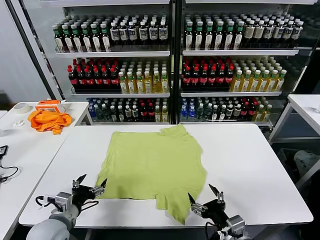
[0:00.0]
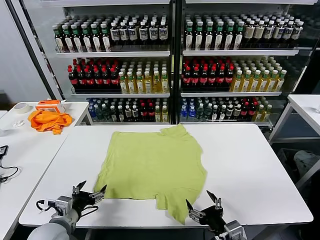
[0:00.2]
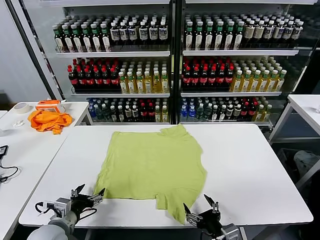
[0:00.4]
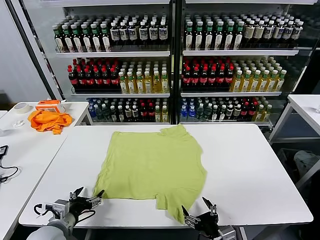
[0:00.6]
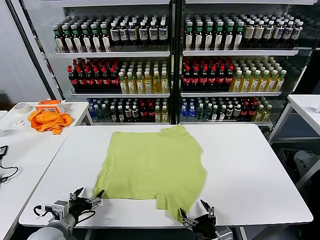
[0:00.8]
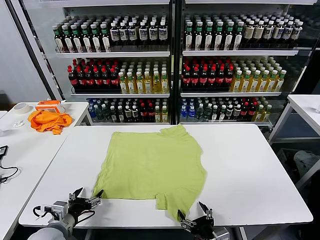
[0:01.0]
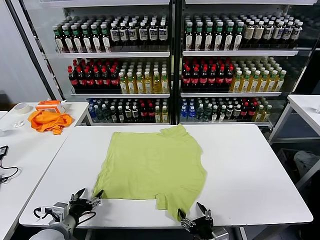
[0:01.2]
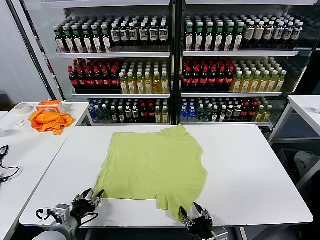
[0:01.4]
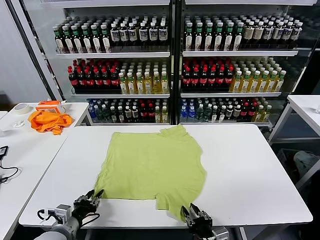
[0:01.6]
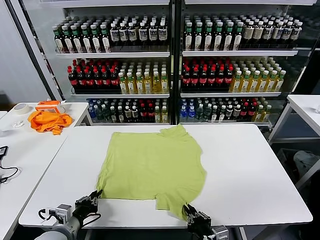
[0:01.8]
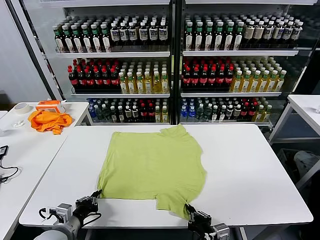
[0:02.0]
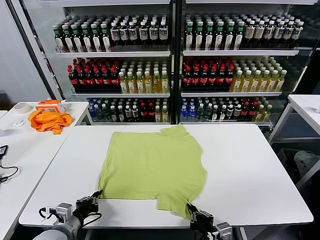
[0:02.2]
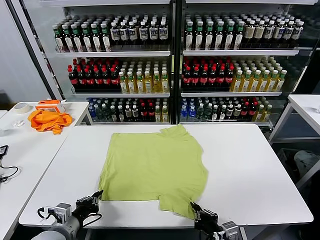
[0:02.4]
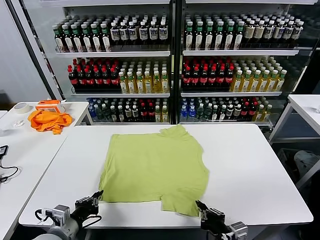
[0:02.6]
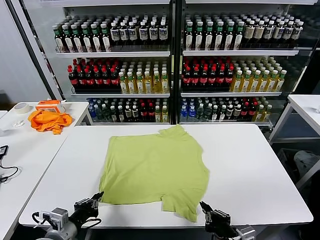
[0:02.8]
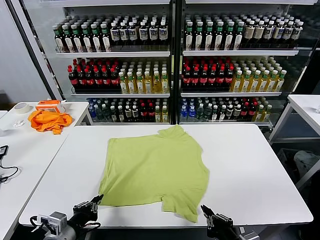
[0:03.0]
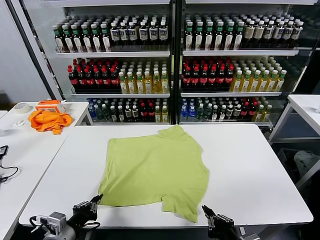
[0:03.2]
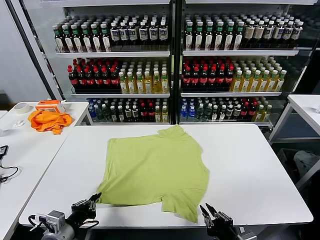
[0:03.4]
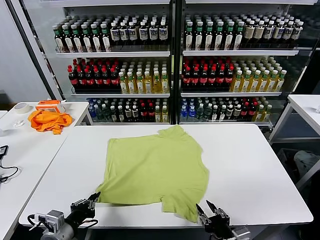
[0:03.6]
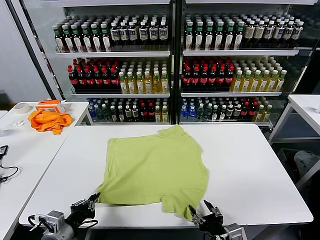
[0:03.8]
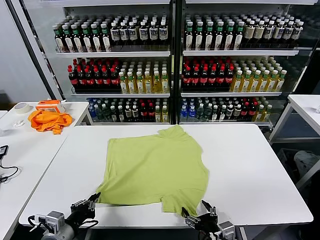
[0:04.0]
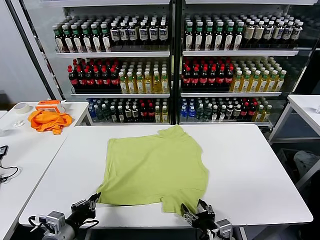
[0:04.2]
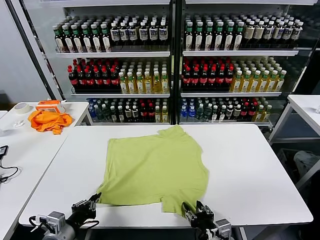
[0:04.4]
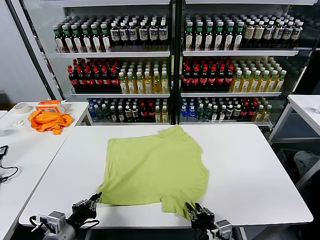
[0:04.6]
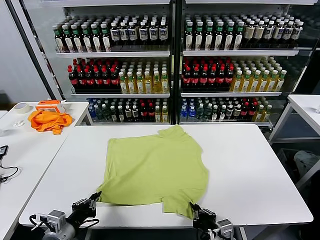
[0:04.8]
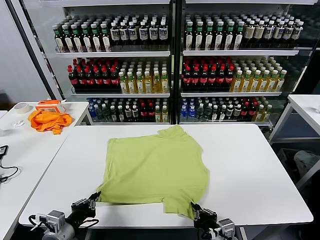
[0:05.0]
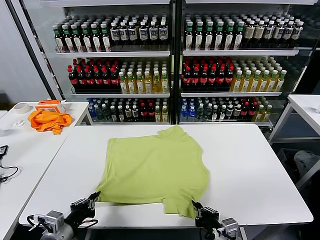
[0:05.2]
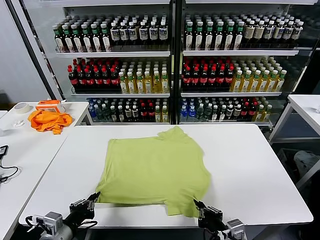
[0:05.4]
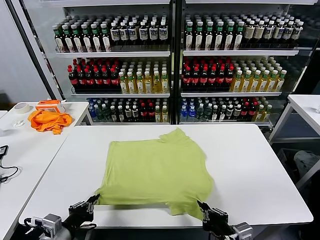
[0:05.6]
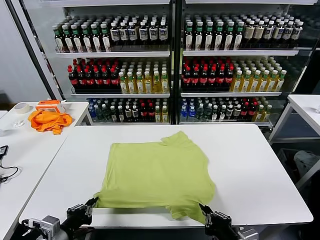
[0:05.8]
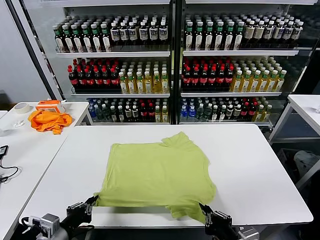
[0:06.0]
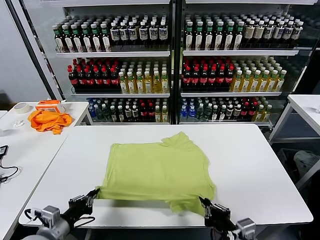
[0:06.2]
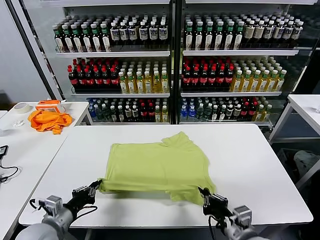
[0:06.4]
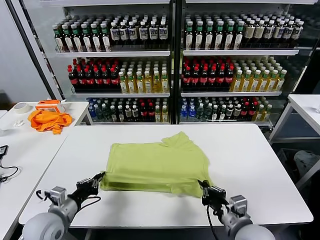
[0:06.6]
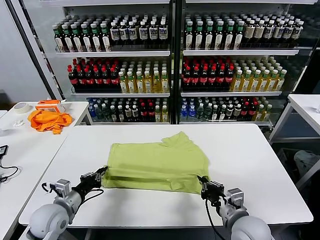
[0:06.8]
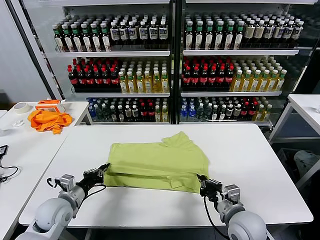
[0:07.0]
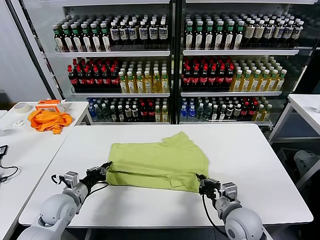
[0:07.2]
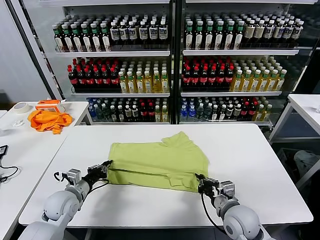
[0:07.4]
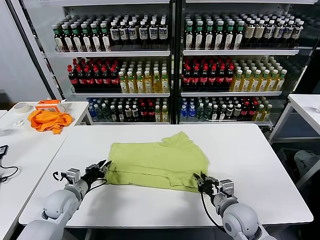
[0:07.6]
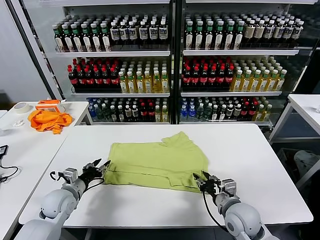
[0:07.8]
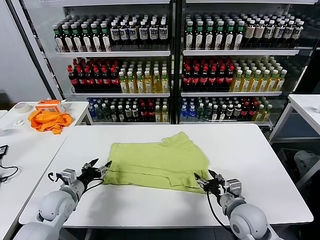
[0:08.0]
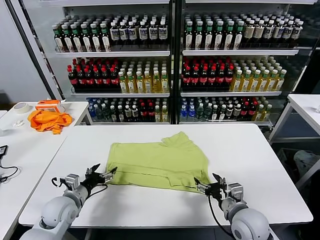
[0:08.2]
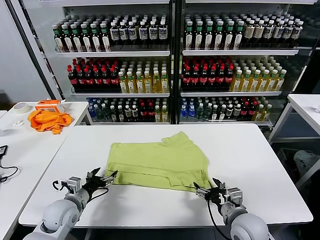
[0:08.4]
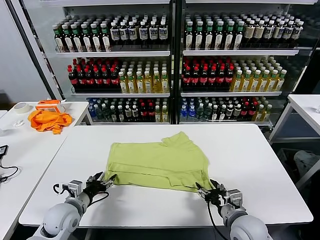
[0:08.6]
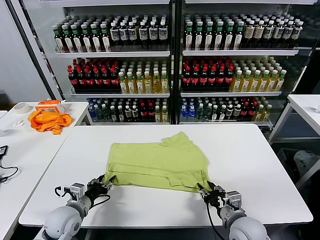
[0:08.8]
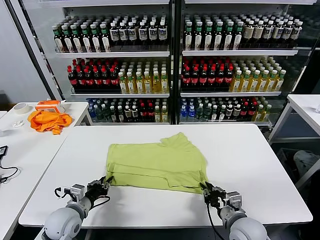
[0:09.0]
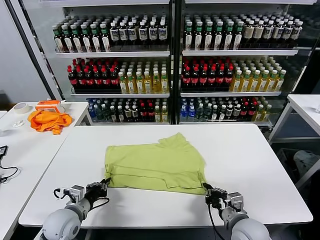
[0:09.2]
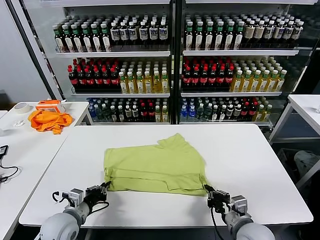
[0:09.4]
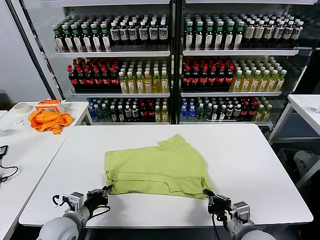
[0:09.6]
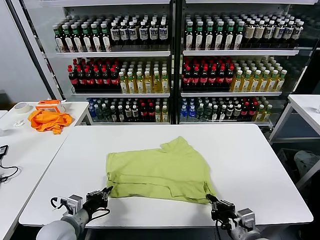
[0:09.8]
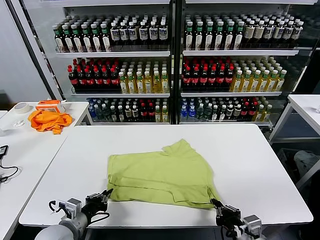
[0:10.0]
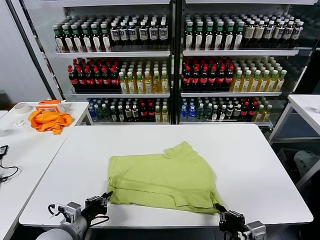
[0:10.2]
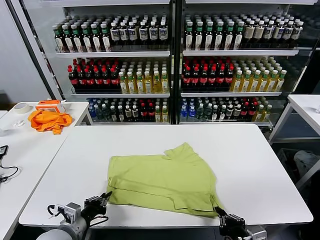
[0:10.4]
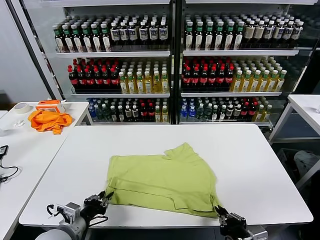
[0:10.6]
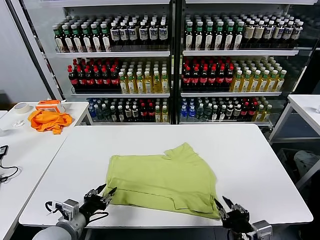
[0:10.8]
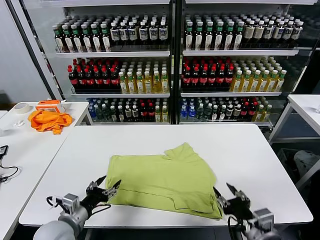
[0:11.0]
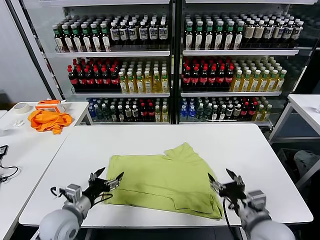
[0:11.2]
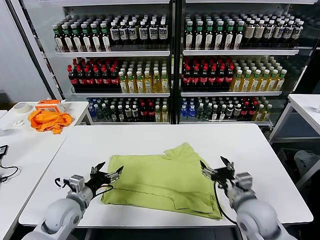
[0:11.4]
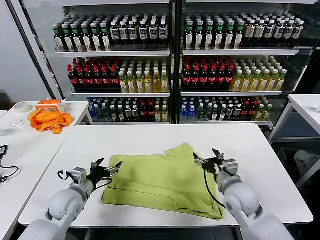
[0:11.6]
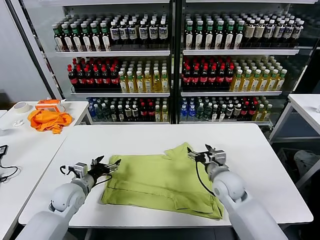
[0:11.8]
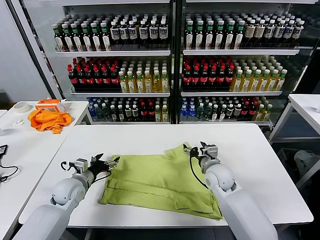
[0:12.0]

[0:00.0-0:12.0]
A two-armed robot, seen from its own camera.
Task of the whole recording: fold and organize the clothes.
Step, 0:00.0 to 0:01.8: use both grippers simultaneously to clamp the lower edge of the clothing fabric.
Step, 0:02.0 to 0:07.8: use both grippers to drag the lower edge of the fabric forward and fold it over the upper edge.
Step, 0:08.0 to 0:10.6: Drag the clothes downward with both gripper.
0:01.6 to 0:03.0: Both grippers travel together upward, about 5 cm.
0:03.0 to 0:04.4: The right gripper shifts some 5 cm downward, and opens its fingers.
0:04.4 to 0:06.0: The right gripper travels upward by roughly 10 cm, and closes.
0:06.0 to 0:07.6: The right gripper goes approximately 15 cm forward and downward, and opens its fingers, while the left gripper shifts about 20 cm forward, and opens.
0:07.6 to 0:09.0: The left gripper travels backward by approximately 5 cm, and opens, then closes once more, while the right gripper opens, then closes once more.
0:09.0 to 0:10.4: The right gripper travels backward by some 10 cm; the left gripper travels backward by approximately 5 cm.
0:10.4 to 0:12.0: The left gripper heads forward, covering approximately 20 cm, and opens; the right gripper is displaced forward by approximately 30 cm, and opens up.

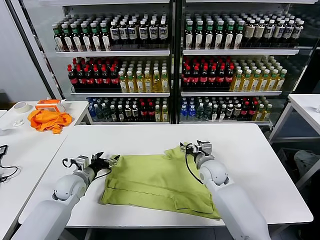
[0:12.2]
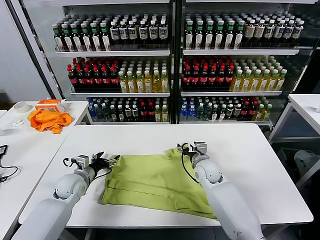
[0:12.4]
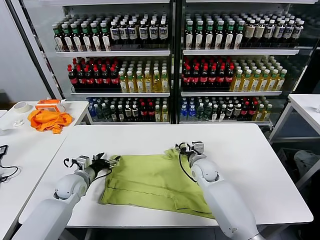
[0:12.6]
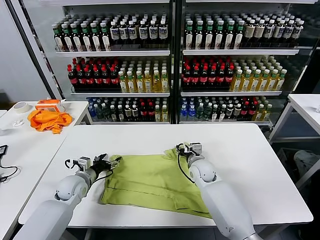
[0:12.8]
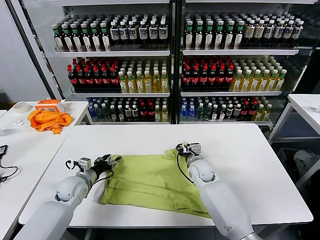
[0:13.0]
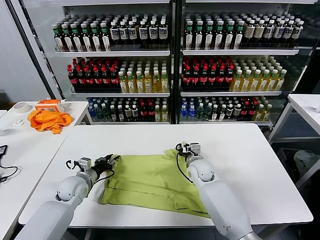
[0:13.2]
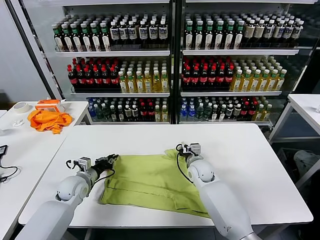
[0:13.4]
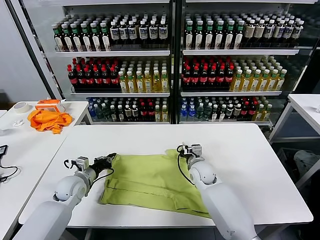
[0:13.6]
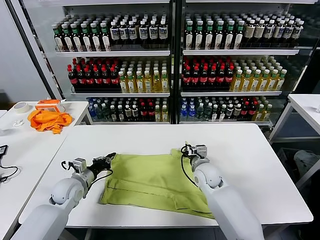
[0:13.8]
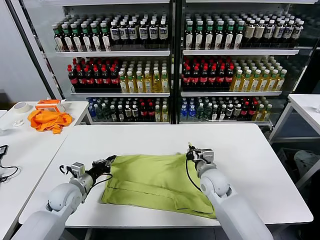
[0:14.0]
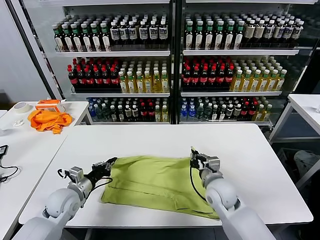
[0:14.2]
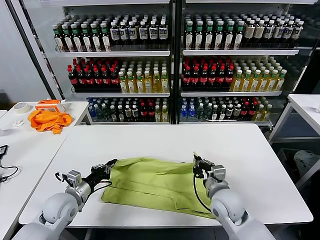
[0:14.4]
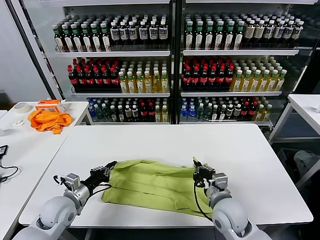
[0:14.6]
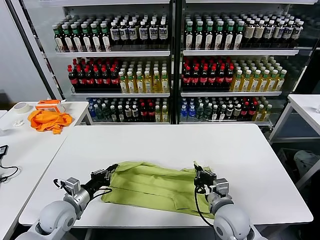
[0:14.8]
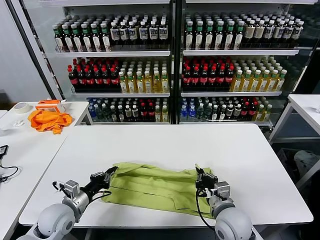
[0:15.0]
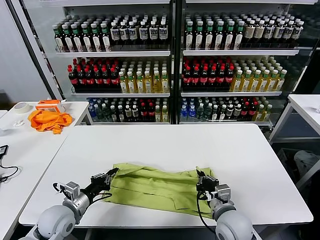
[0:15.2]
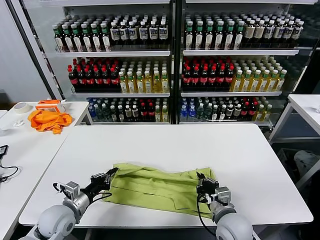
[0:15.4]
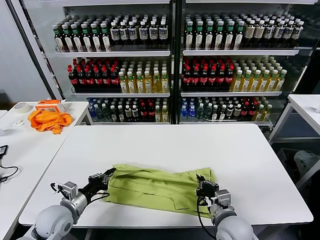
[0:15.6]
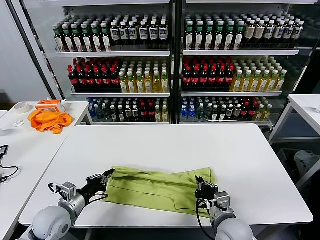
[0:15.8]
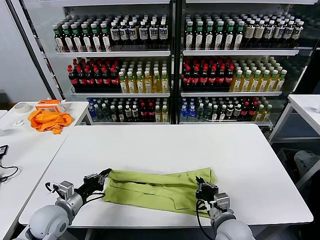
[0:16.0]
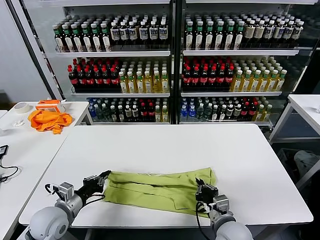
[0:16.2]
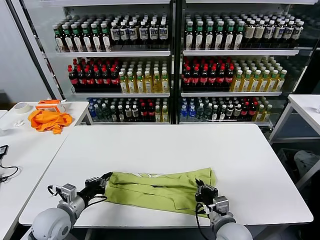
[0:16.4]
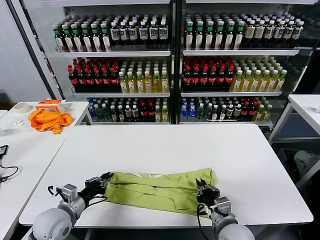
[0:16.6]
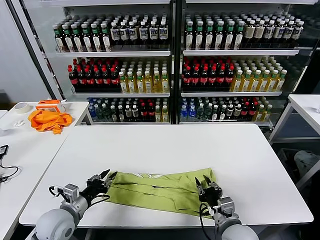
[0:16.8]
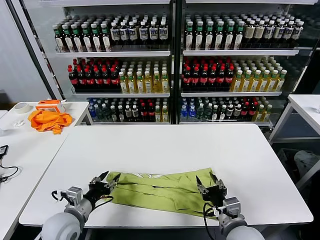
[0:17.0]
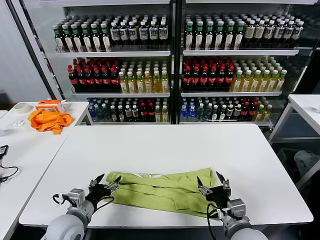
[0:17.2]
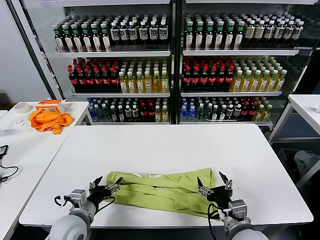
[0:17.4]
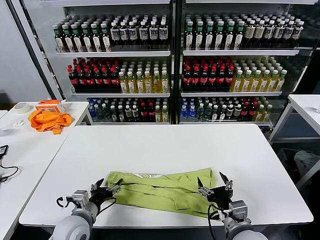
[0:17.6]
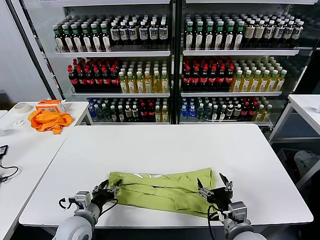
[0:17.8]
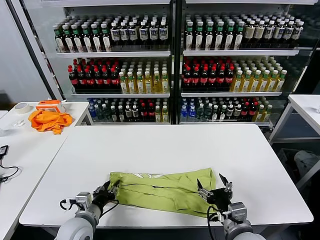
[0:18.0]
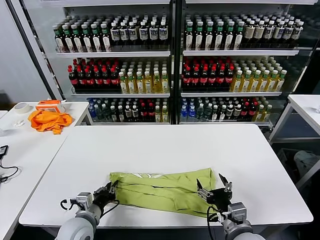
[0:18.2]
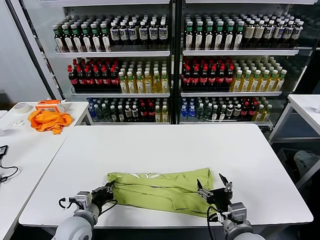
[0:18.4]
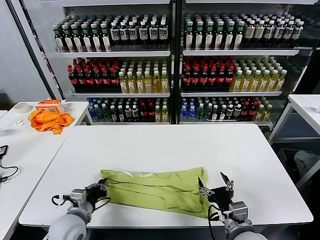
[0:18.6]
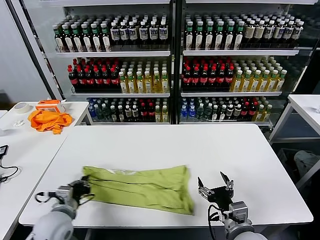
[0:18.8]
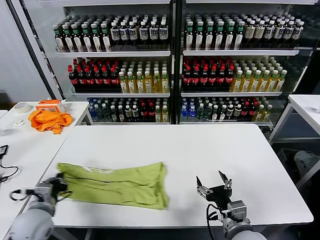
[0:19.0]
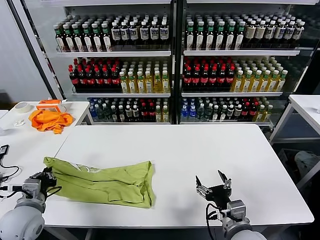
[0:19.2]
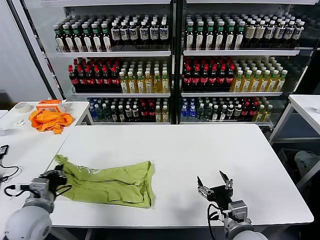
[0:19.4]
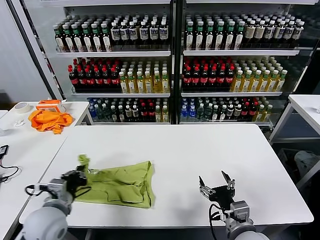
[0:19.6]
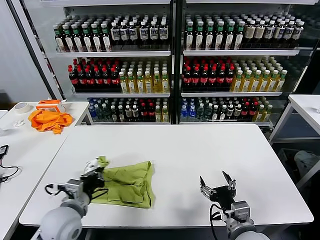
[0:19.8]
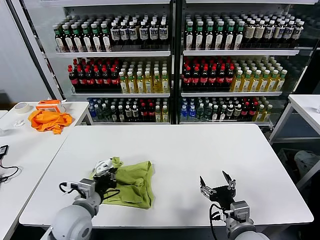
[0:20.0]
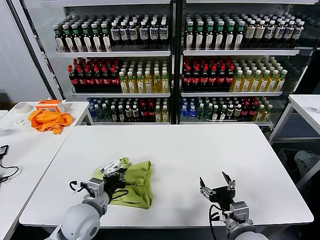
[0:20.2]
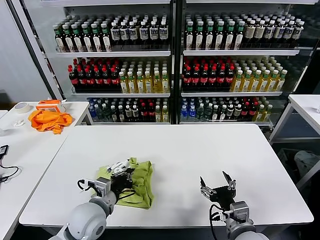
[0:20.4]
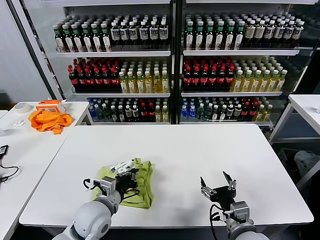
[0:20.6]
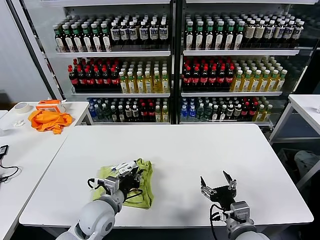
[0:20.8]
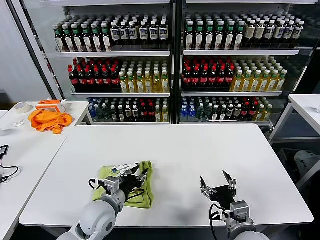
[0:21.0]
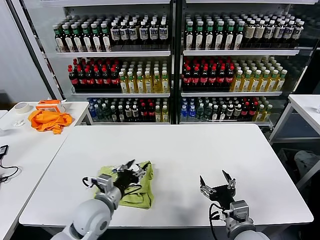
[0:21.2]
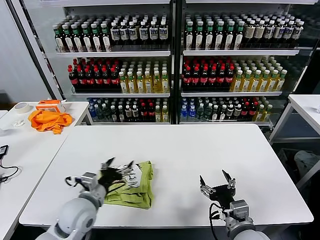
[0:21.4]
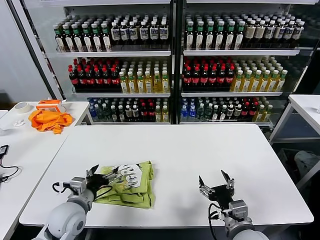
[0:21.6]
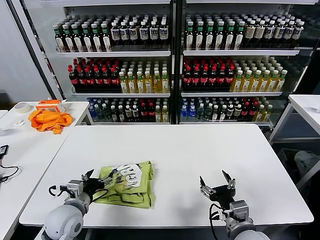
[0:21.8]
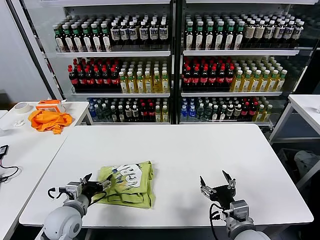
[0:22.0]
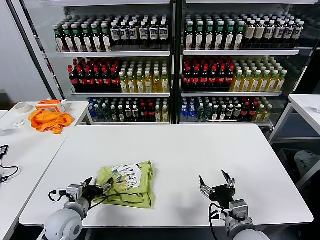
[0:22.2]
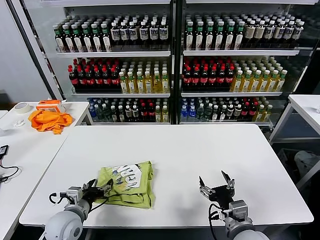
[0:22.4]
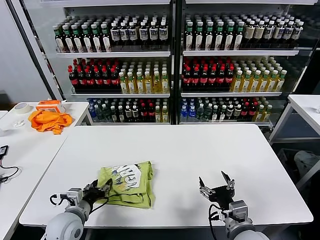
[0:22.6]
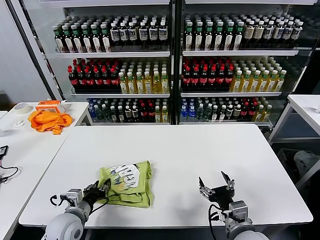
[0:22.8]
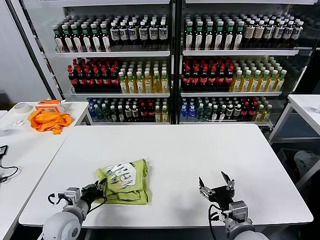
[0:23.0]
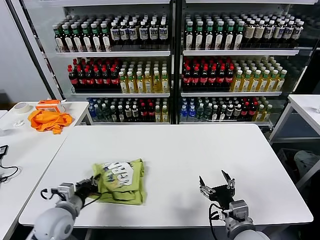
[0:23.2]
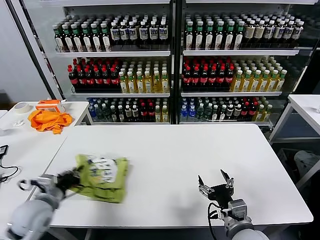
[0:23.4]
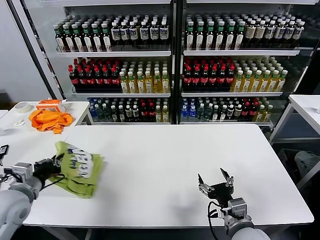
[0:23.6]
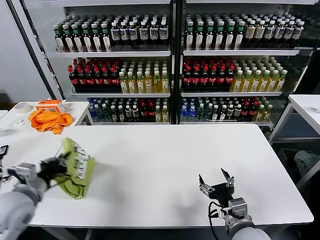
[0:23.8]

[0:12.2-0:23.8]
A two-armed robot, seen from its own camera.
Task of the whole recording: fold and organize the clothes.
Step, 0:13.8 to 0:16.6: use both grippers to drag the upper edge of the fabric backward and fold it over the lower edge.
Step, 0:17.0 to 0:18.4: use the left gripper to clamp the left edge of the fabric.
Step, 0:18.6 to 0:21.0: use the left gripper to drag the left edge of the fabric to the left and folds it over the right edge.
0:12.2 to 0:13.6: The right gripper closes up. Meanwhile the left gripper closes up.
0:13.6 to 0:15.0: The right gripper shifts some 20 cm backward; the left gripper heads backward, covering roughly 10 cm.
0:15.0 to 0:16.6: The grippers make only small movements.
0:16.6 to 0:18.0: The left gripper is displaced to the right by some 5 cm, and opens and closes again; the right gripper ends up some 5 cm from where it was, and opens its fingers.
0:18.0 to 0:19.4: The left gripper travels to the left and upward by some 15 cm, and closes its fingers.
0:19.4 to 0:21.0: The left gripper moves to the right, some 15 cm, and opens.
0:21.0 to 0:22.4: The left gripper goes about 10 cm to the left, and opens up.
0:22.4 to 0:23.8: The left gripper travels upward and to the left by about 15 cm, and closes its fingers.
